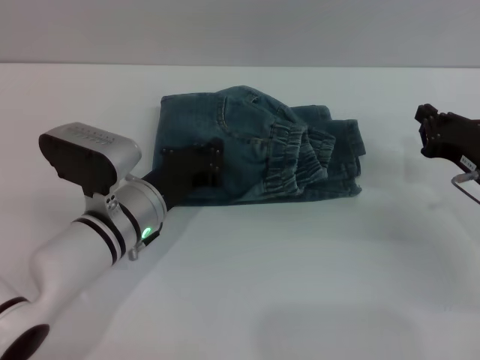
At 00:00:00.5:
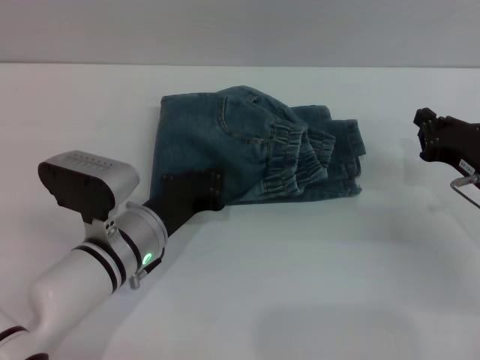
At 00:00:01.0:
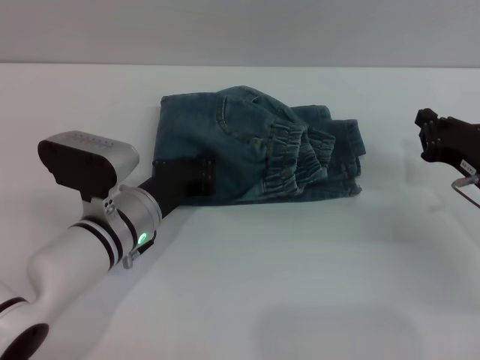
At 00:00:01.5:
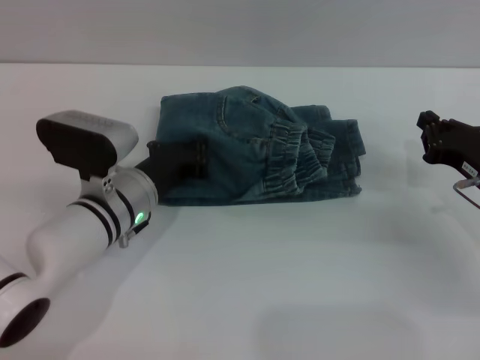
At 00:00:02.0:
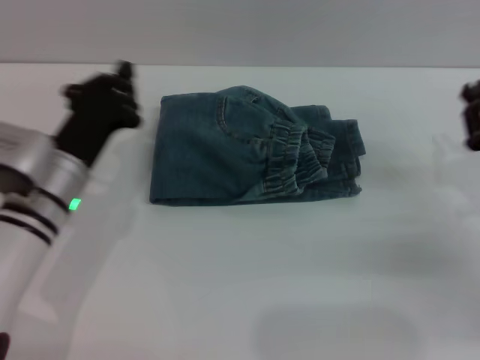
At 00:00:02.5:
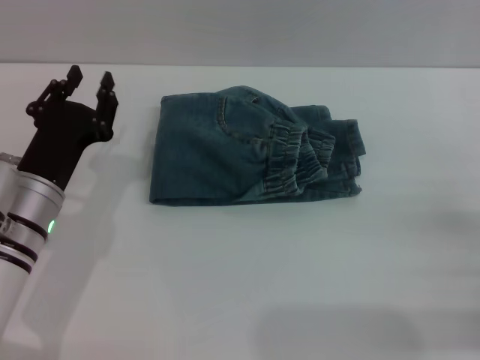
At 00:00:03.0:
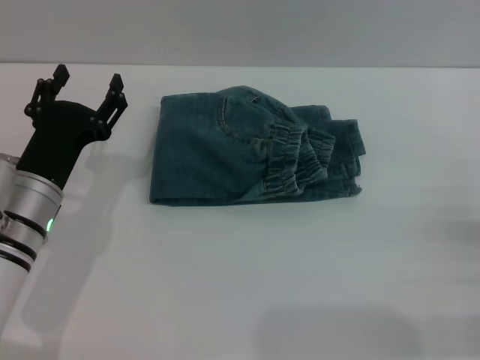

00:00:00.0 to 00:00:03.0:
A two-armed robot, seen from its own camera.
00:00:00.0 to 00:00:01.5: The grippers stay close to where they were, moving slightly.
00:00:01.5 to 00:00:03.0: The right gripper shifts approximately 15 cm backward and to the right, and opens up. Meanwhile the left gripper shifts roughly 5 cm to the left, and opens up.
